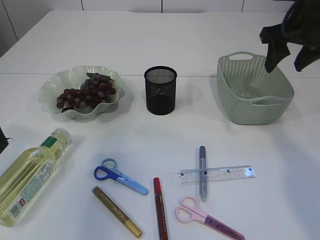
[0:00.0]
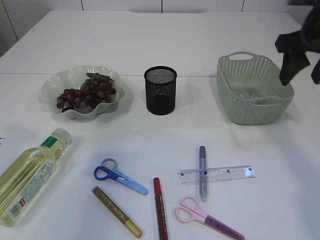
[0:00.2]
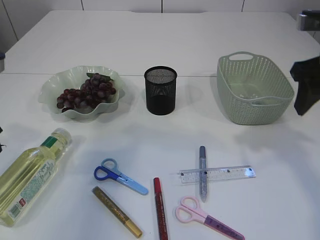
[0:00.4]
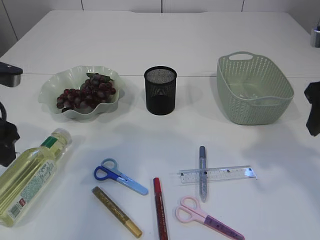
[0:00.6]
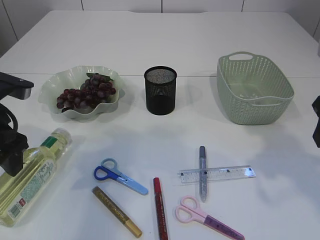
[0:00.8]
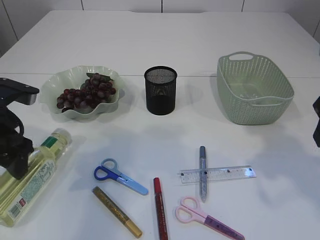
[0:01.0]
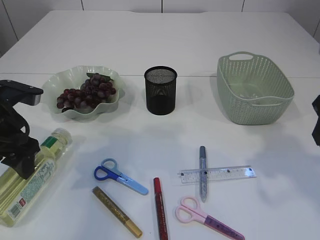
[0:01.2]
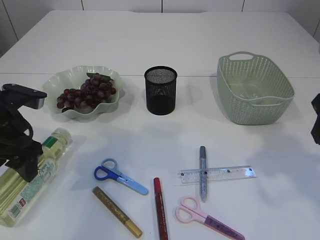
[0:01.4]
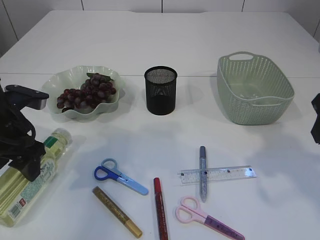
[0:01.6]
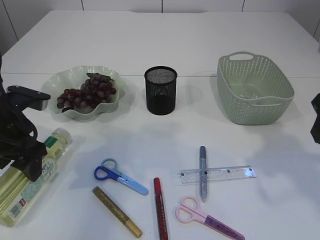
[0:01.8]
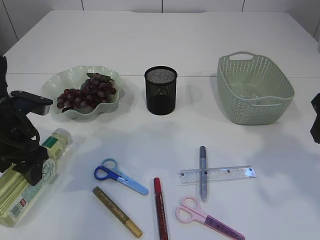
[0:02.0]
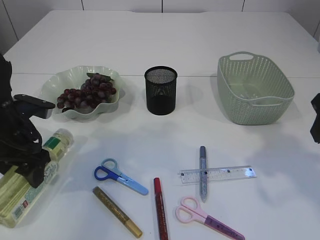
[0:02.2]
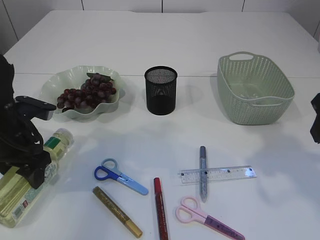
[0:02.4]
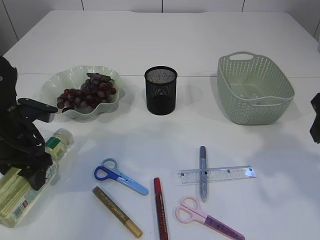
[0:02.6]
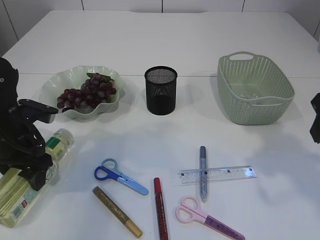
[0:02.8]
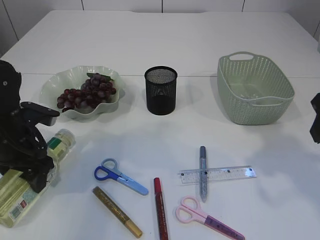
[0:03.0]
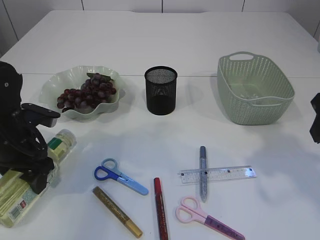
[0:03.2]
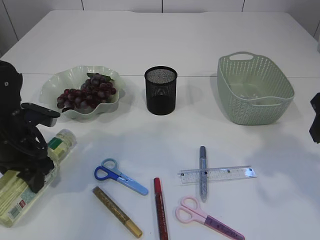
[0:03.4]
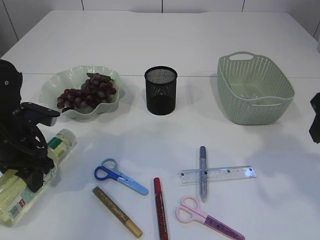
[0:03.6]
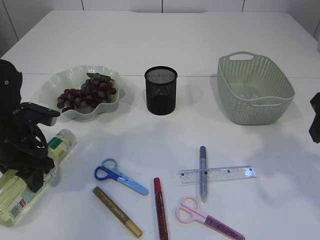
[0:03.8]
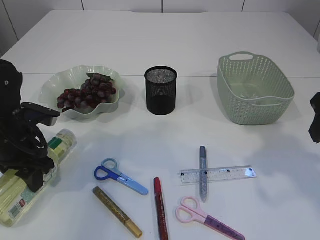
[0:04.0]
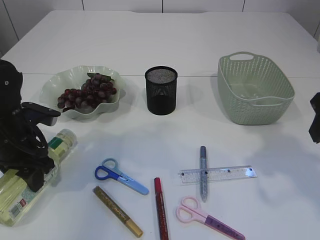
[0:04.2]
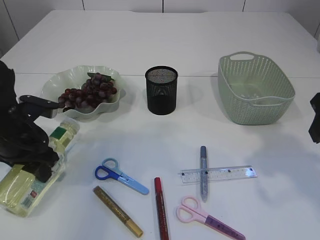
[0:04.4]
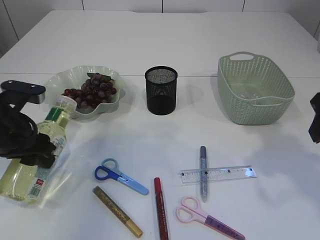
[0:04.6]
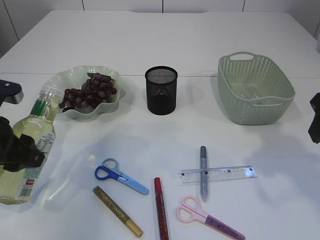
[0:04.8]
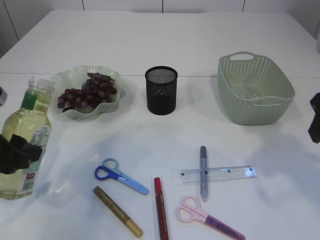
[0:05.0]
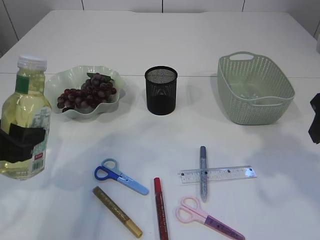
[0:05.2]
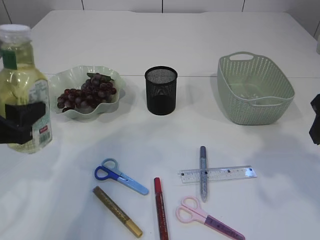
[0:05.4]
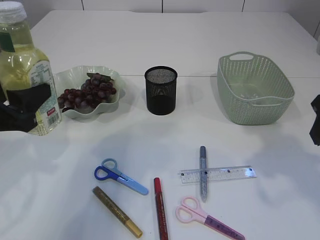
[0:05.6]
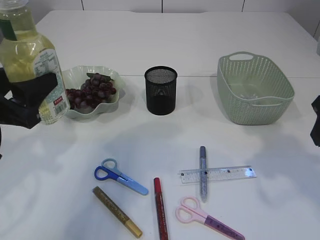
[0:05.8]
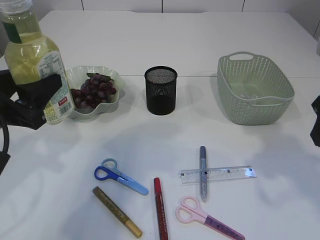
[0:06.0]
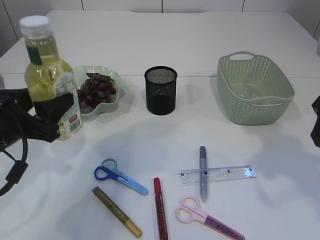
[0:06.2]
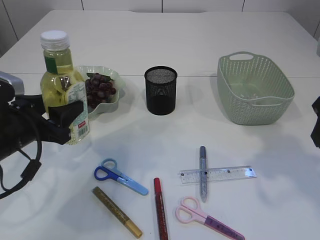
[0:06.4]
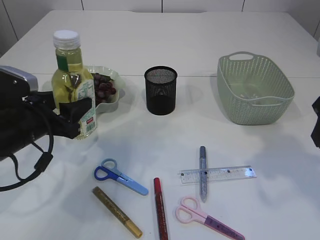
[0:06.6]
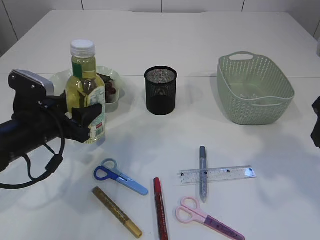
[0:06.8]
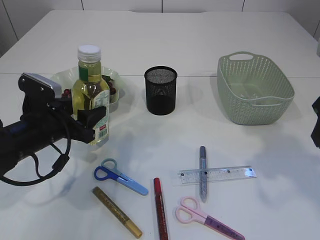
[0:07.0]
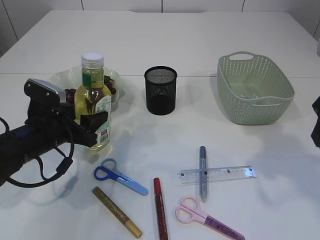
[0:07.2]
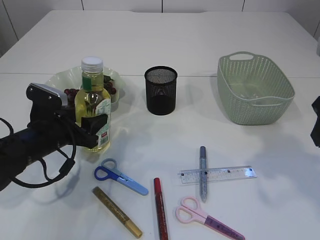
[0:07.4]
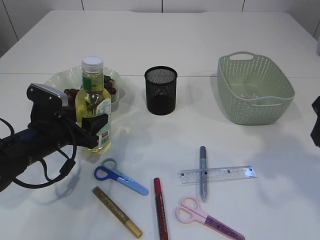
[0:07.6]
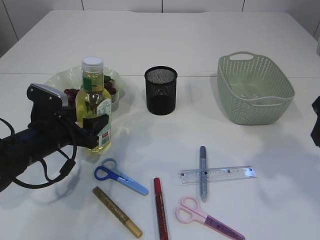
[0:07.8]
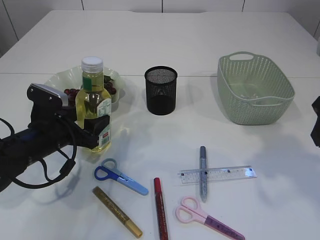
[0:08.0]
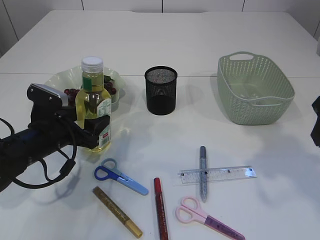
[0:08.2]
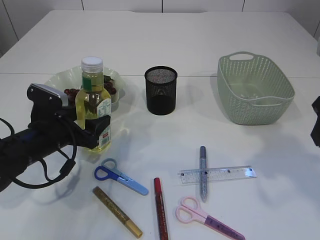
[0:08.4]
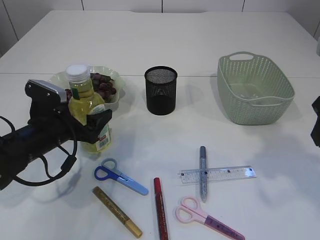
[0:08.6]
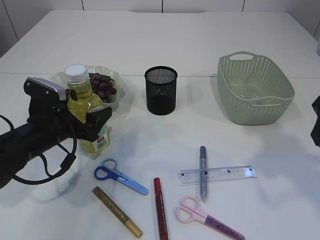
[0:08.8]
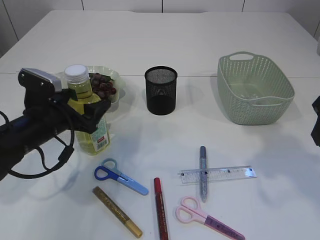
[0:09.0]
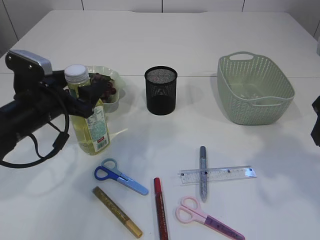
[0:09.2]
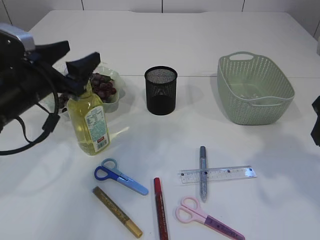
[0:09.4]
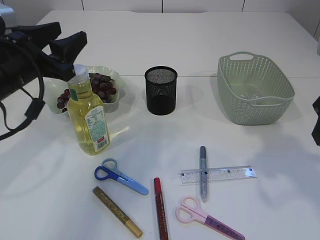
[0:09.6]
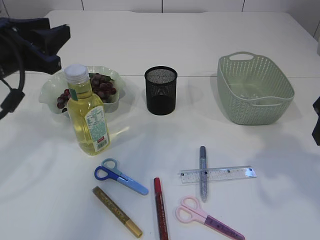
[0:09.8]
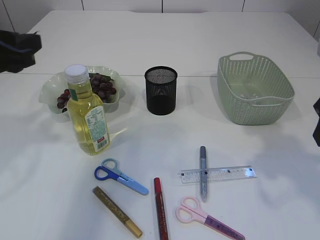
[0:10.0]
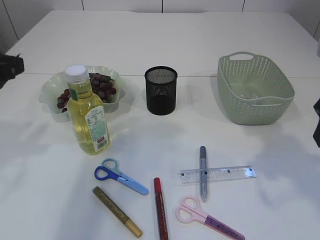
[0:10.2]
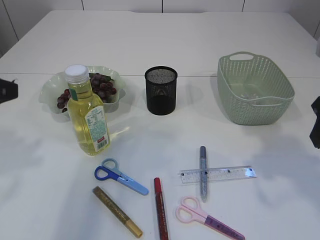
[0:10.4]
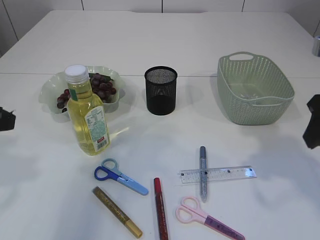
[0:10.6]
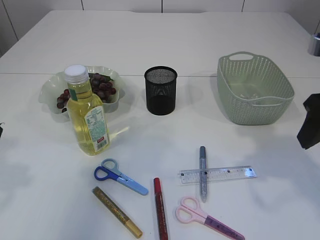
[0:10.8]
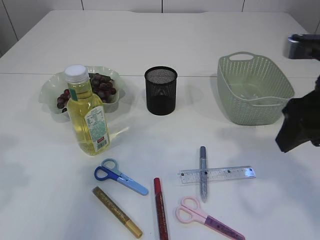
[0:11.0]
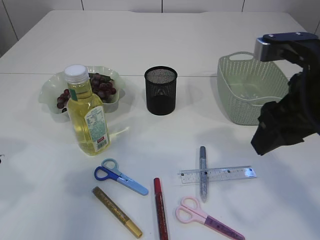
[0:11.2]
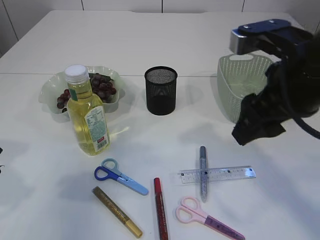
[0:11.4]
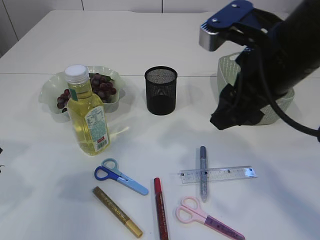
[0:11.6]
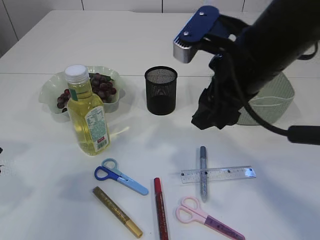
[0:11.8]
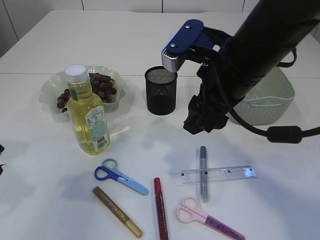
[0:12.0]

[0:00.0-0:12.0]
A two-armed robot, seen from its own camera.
Step, 0:00.2 to 0:05.0: Pick up the bottle with the left arm.
Step, 0:05.2 to 0:09.4: Place the bottle.
0:00.0 to 0:01.6: The left gripper heads downward and forward, covering roughly 15 cm, while the right gripper is displaced backward by roughly 15 cm.
0:01.6 to 0:04.4: There are only small adjustments of the grippers.
0:04.4 to 0:06.0: The left gripper heads backward and upward, covering some 10 cm.
0:06.0 to 0:07.6: The left gripper goes about 15 cm downward and forward.
0:07.6 to 0:09.0: The left gripper opens up.
0:09.0 to 0:10.4: The left gripper shifts approximately 20 cm upward and backward, and closes its fingers.
0:10.4 to 0:12.0: The right gripper heads to the left, covering about 15 cm.

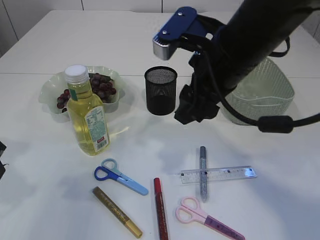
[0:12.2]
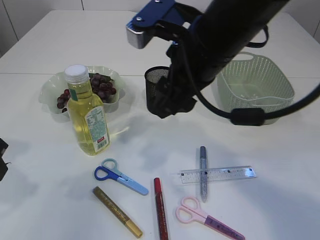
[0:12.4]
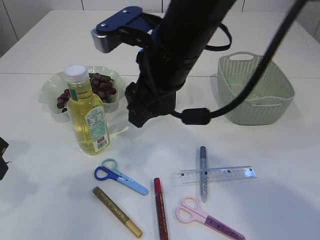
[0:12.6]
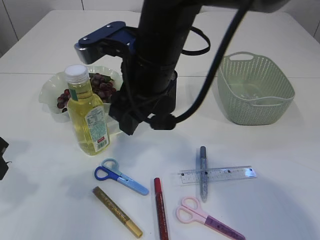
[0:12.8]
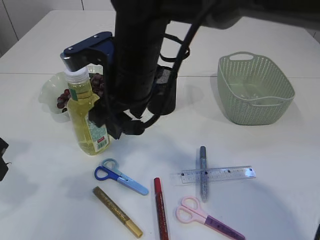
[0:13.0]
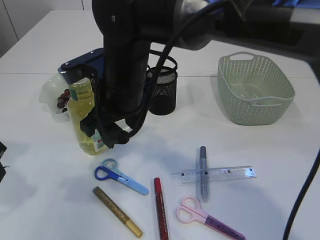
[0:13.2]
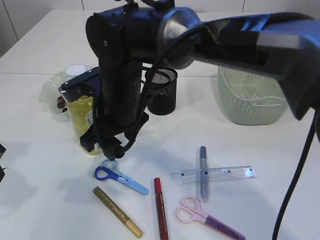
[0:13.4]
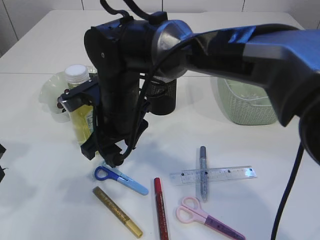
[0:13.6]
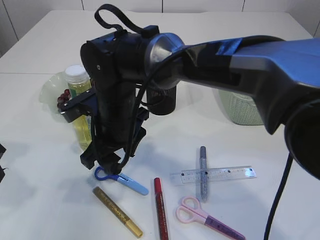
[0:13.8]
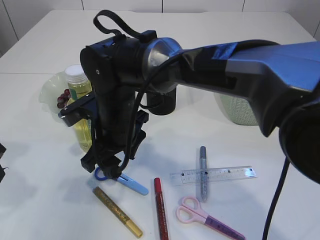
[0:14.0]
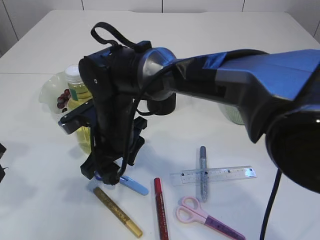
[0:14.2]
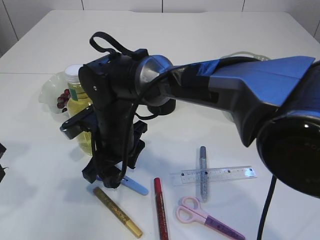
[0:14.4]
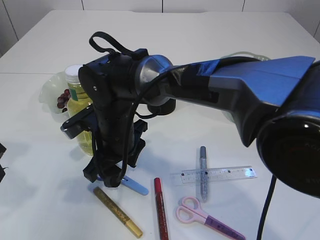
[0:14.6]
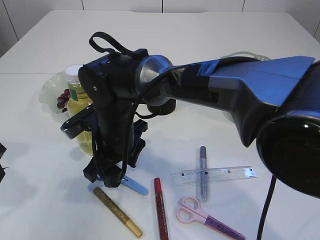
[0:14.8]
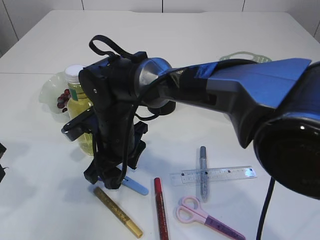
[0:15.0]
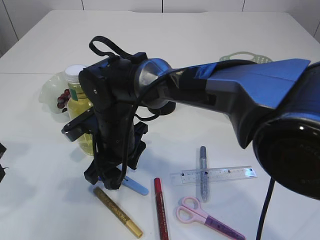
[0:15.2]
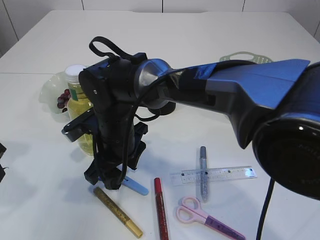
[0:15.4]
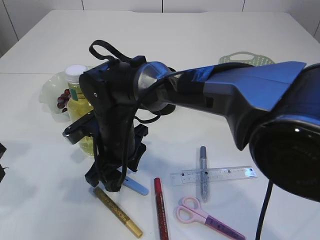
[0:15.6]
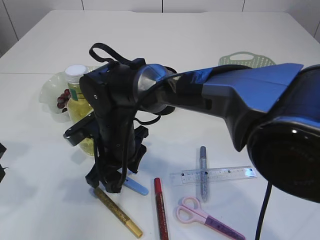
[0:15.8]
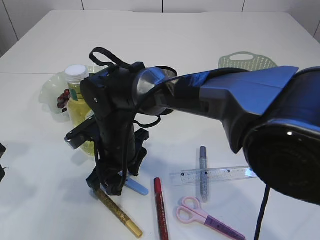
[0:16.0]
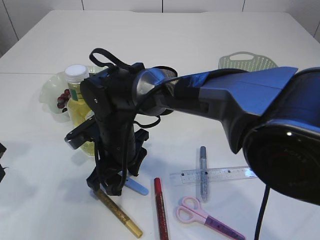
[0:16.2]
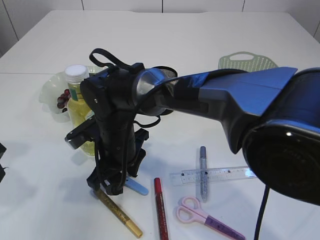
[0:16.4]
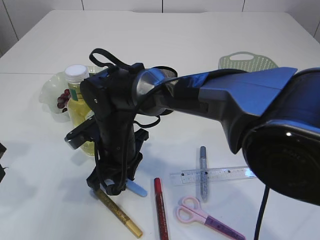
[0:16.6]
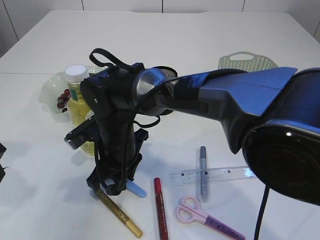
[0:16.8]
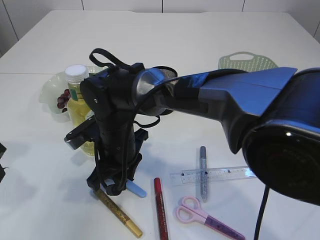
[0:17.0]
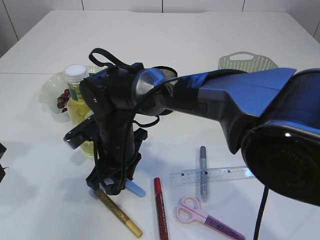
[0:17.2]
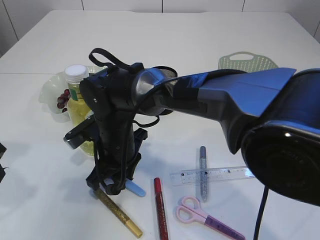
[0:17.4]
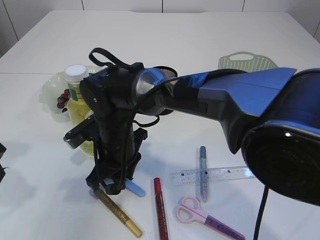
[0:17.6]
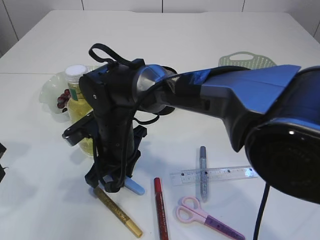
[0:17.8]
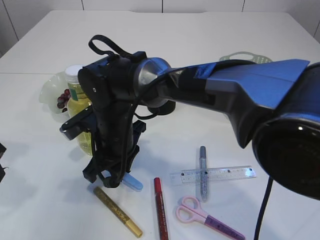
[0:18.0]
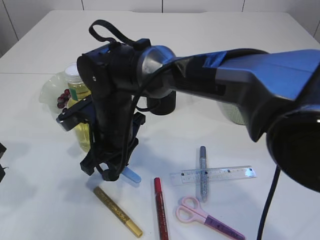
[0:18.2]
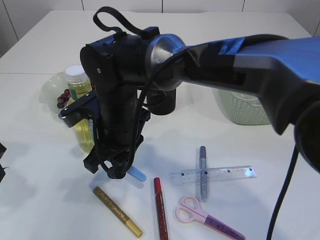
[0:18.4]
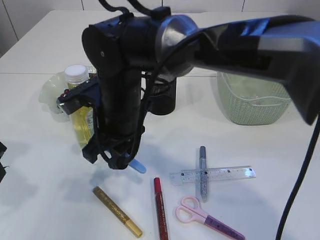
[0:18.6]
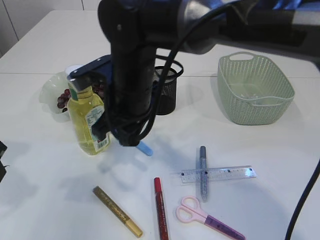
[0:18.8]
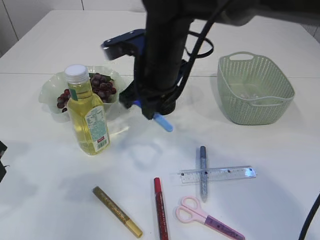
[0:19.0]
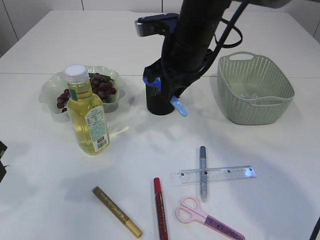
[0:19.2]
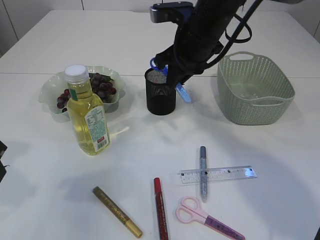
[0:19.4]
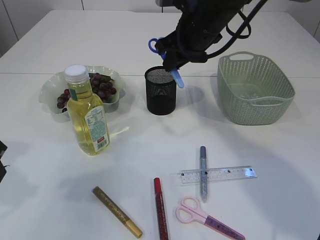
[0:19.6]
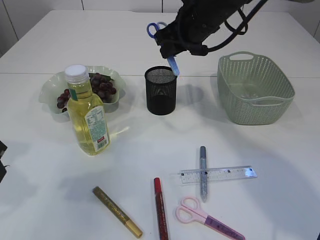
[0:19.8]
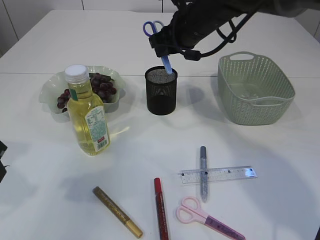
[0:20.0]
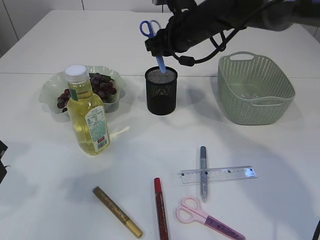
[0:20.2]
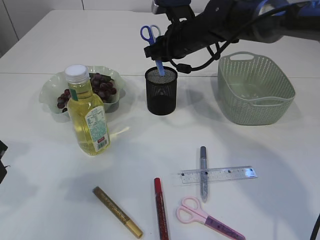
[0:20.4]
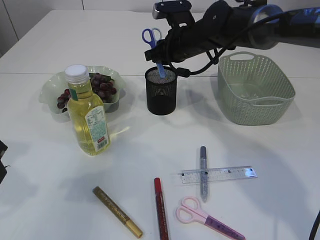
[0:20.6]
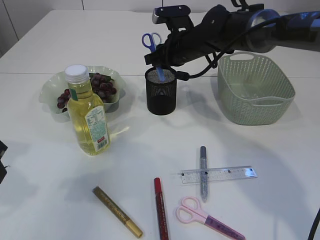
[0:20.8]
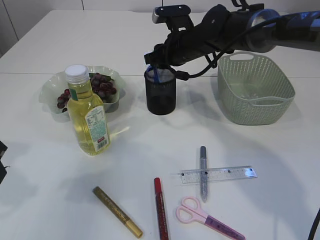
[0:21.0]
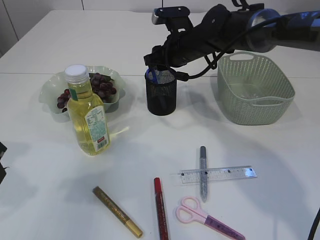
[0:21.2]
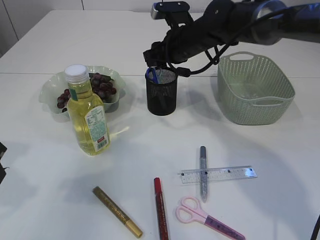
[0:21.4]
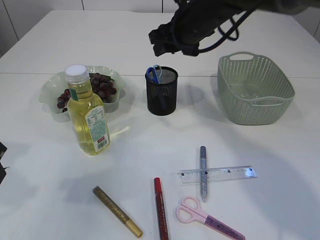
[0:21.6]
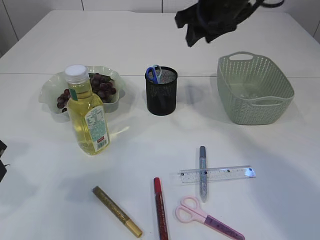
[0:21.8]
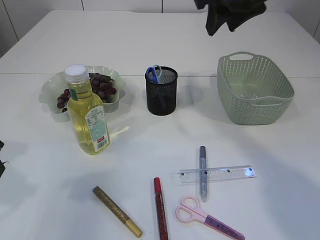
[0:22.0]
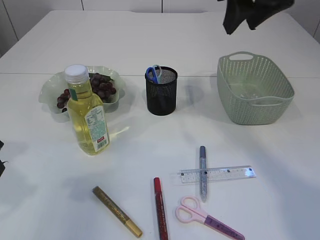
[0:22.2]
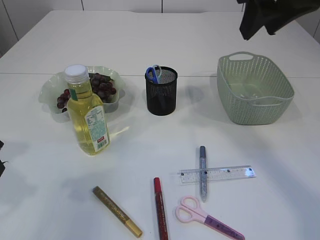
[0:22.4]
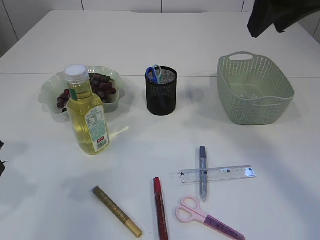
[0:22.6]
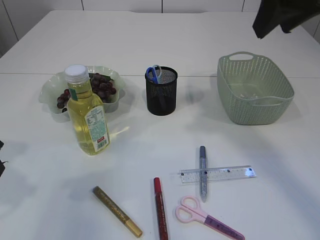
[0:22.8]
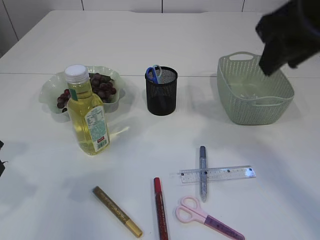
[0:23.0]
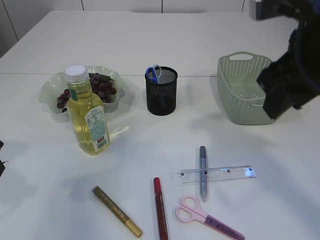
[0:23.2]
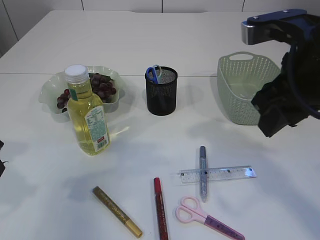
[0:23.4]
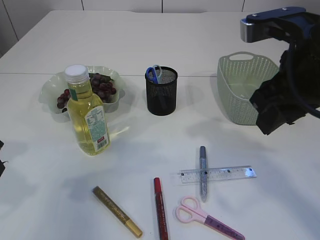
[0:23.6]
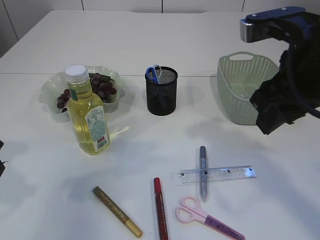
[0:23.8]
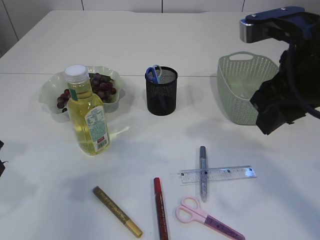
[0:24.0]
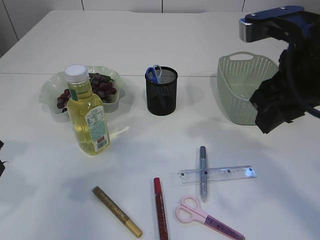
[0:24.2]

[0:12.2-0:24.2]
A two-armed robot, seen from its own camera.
Step, 0:12.2 to 0:18.2: pick up the blue scissors.
Step, 0:18.4 to 0:21.6: Place the blue knife into the pen holder.
0:12.2 to 0:13.8: The right gripper goes approximately 20 cm to the left and downward.
0:15.2 to 0:16.6: The right gripper closes up.
0:18.2 to 0:19.8: The right gripper shifts some 25 cm to the right, upward and forward.
0:19.8 to 0:21.2: The right gripper travels downward and forward by some 10 cm.
0:21.2 to 0:22.6: The right gripper heads backward, upward and to the right, covering about 30 cm.
0:22.6 to 0:24.2: The right gripper is displaced downward by some 10 cm.
